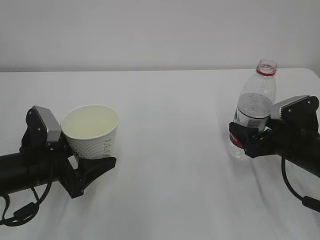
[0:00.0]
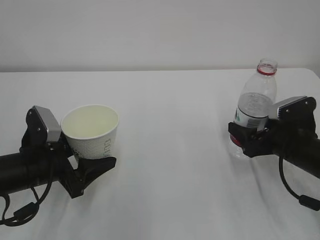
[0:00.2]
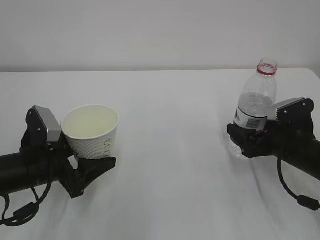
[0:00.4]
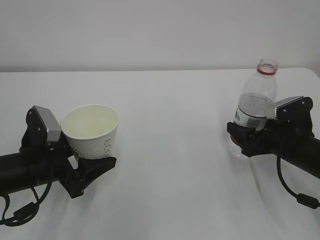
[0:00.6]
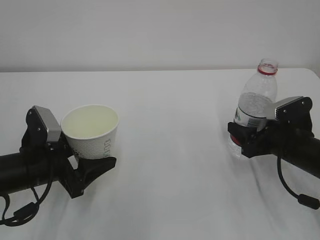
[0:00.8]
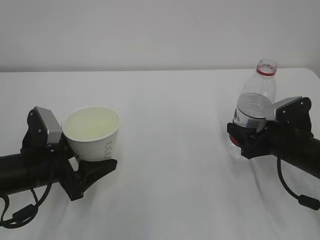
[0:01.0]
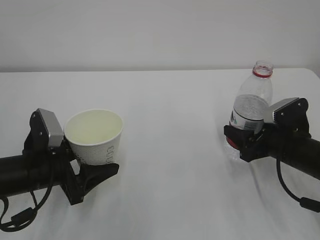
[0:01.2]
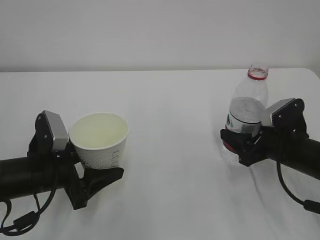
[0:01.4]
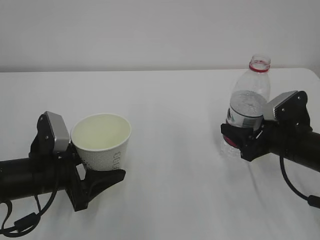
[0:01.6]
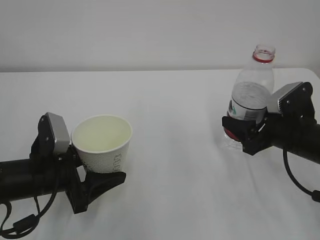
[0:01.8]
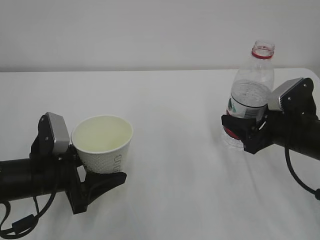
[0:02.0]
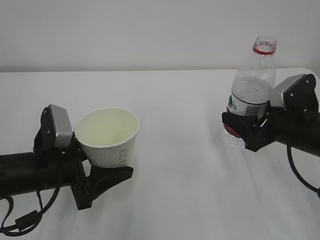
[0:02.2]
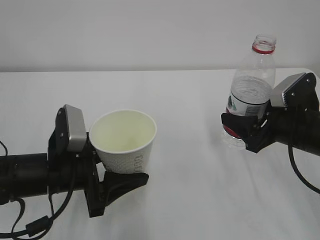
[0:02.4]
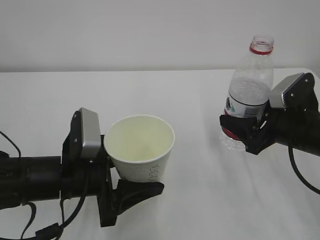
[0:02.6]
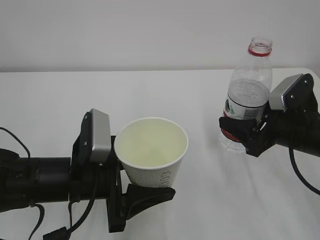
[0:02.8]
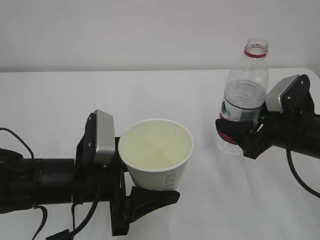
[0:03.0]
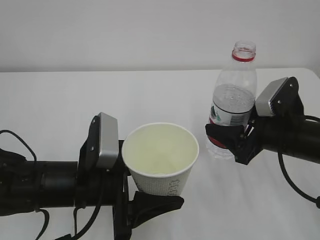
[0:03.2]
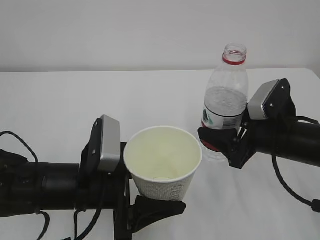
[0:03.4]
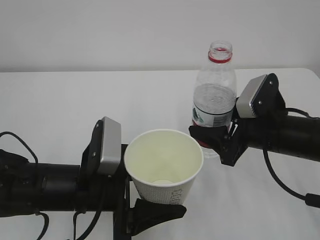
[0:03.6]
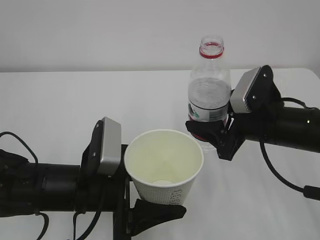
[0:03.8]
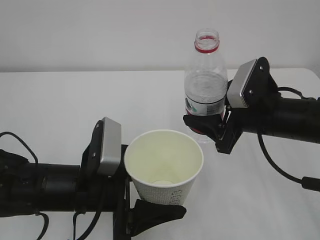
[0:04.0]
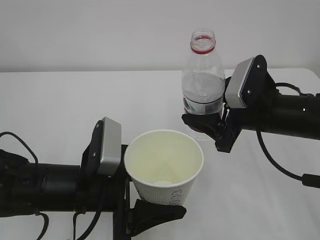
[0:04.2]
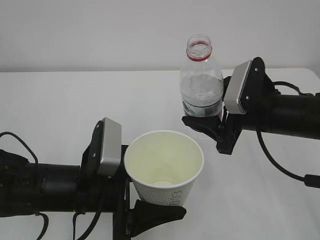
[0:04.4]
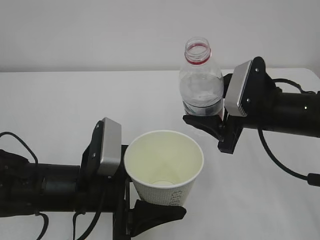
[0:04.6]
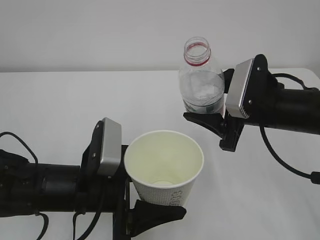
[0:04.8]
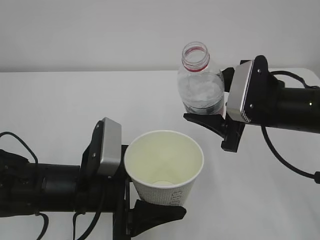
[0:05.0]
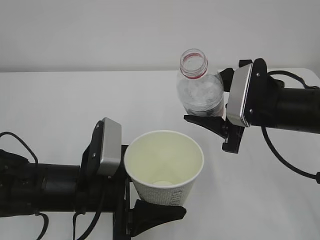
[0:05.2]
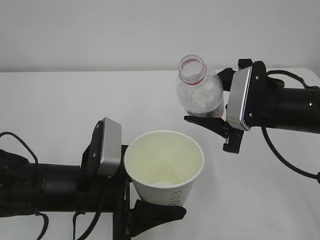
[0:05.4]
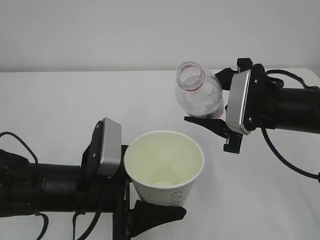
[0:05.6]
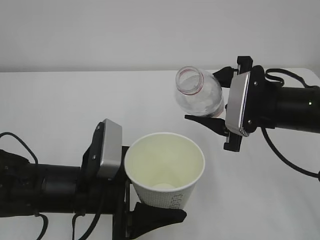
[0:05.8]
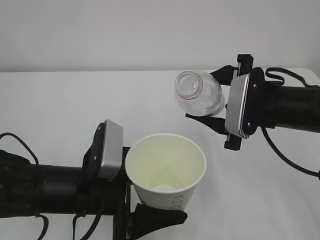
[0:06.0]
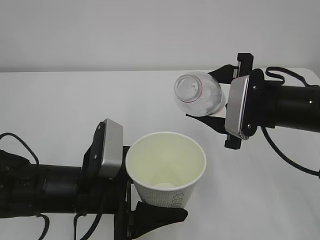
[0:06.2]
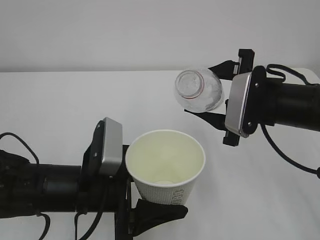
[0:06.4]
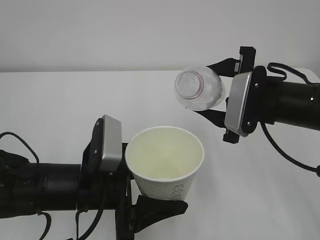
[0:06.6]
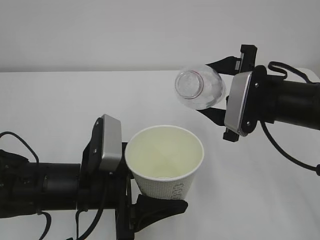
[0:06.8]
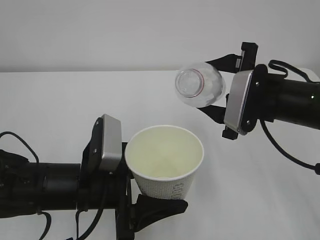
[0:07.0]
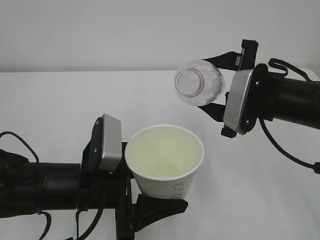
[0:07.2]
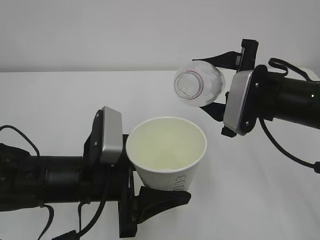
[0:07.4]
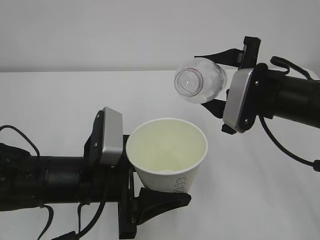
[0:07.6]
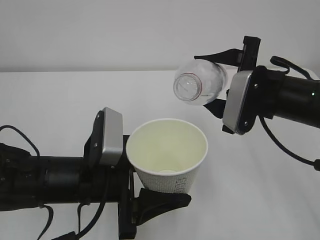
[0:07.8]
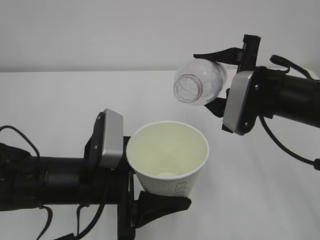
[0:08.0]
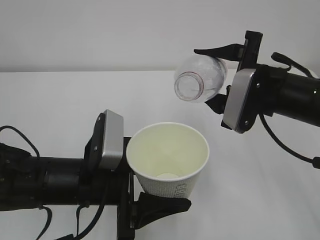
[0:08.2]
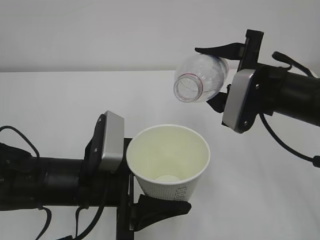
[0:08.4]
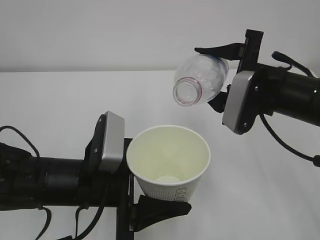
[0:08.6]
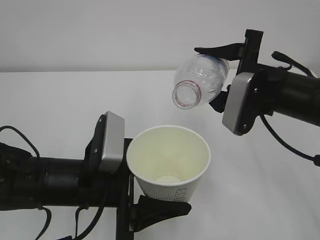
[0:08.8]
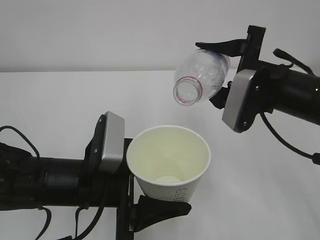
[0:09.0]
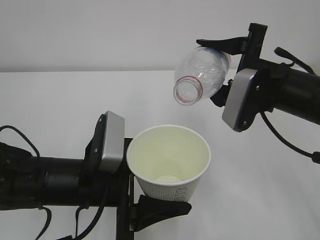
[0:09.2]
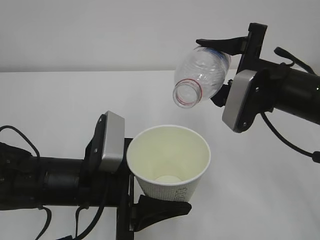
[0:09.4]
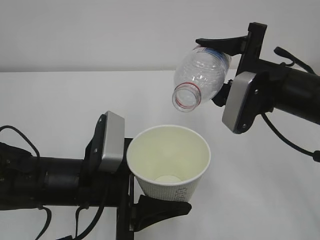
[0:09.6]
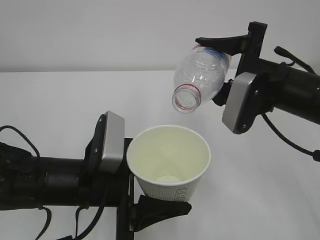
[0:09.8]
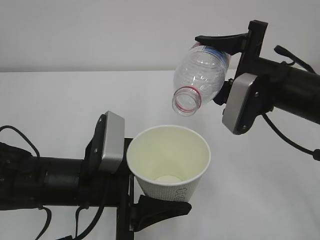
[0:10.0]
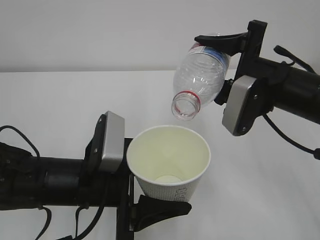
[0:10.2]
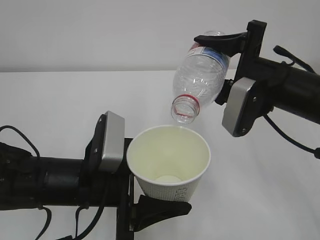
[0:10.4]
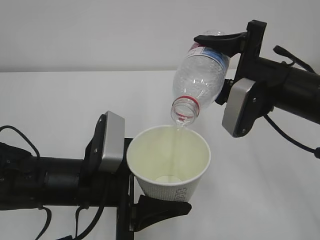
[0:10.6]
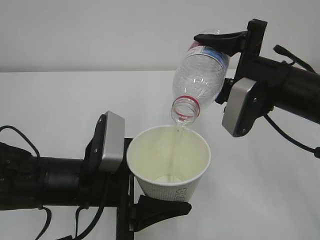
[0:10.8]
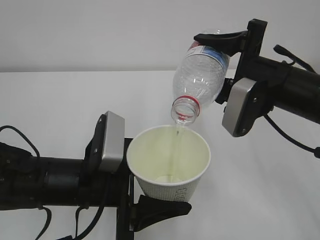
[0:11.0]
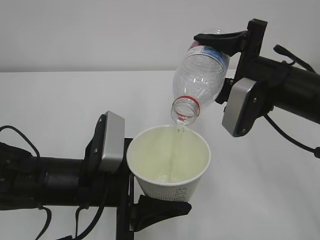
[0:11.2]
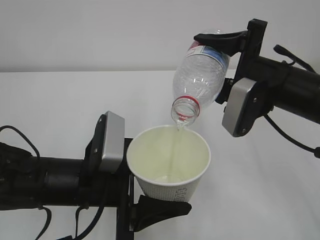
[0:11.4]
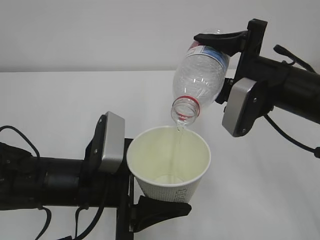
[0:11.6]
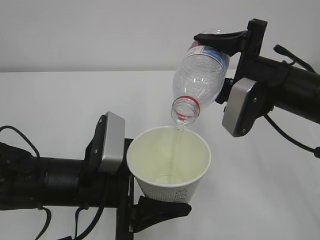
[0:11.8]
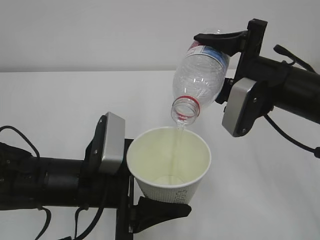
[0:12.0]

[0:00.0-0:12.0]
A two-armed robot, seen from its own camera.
0:00.0 to 0:01.6: The right gripper closes its fingers.
0:01.6 to 0:03.0: The left gripper goes about 10 cm to the right.
0:03.0 to 0:04.4: The right gripper moves to the left, some 5 cm.
0:06.0 to 0:07.6: The grippers stay close to where they were, moving slightly.
0:07.6 to 0:09.0: The grippers stay close to where they were, moving slightly.
0:09.0 to 0:10.4: The grippers move only a little.
0:10.4 to 0:12.0: Both grippers stay about where they are.

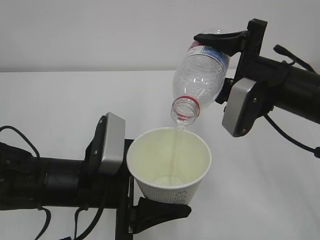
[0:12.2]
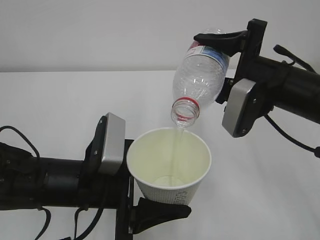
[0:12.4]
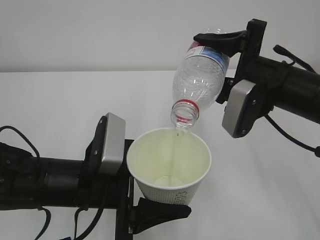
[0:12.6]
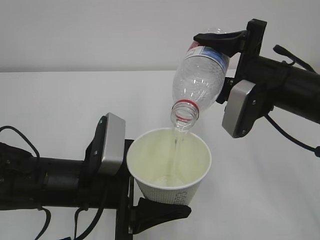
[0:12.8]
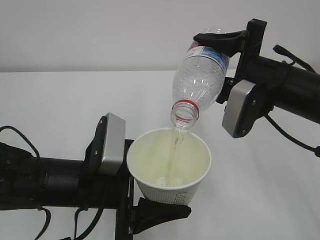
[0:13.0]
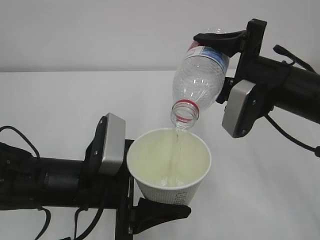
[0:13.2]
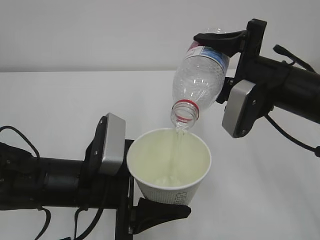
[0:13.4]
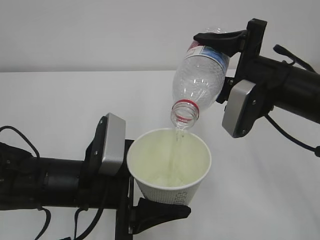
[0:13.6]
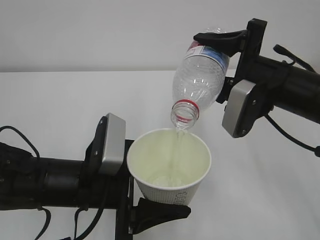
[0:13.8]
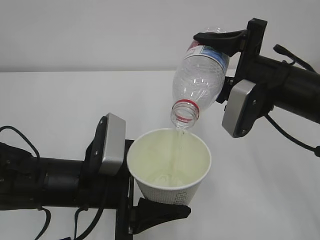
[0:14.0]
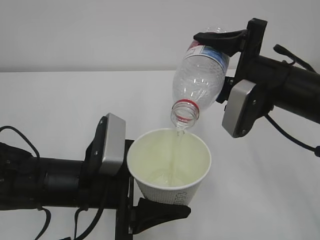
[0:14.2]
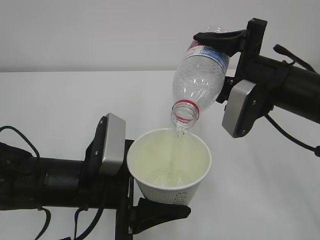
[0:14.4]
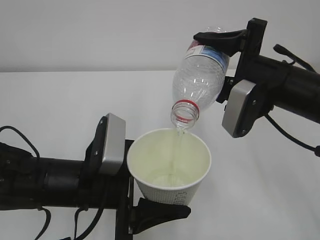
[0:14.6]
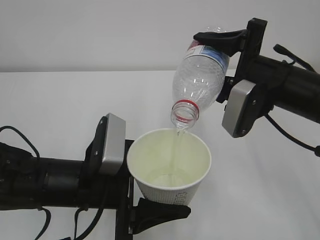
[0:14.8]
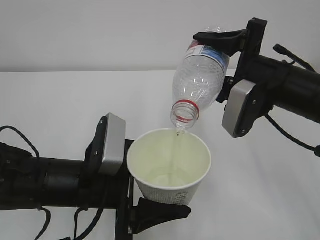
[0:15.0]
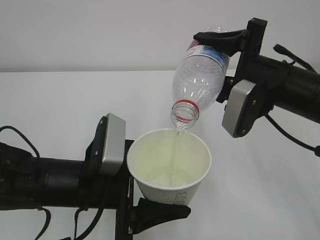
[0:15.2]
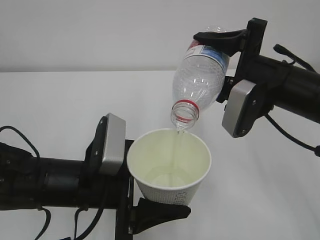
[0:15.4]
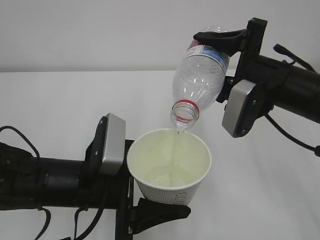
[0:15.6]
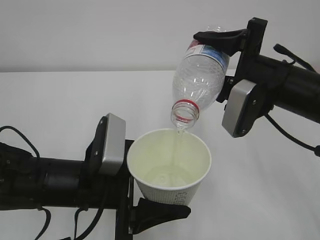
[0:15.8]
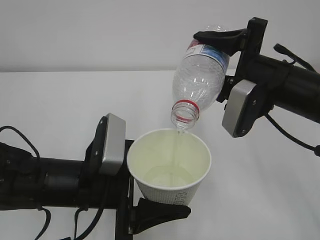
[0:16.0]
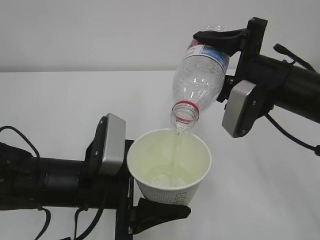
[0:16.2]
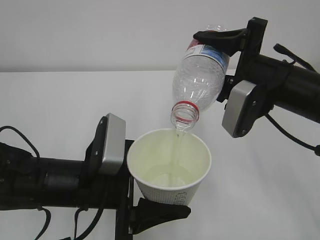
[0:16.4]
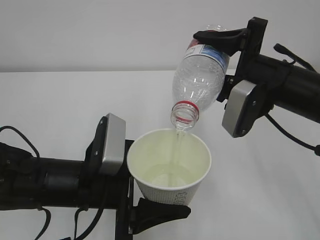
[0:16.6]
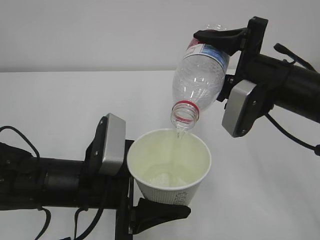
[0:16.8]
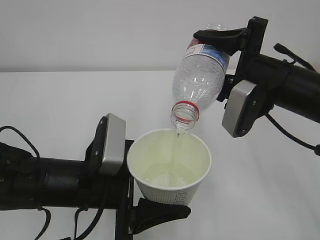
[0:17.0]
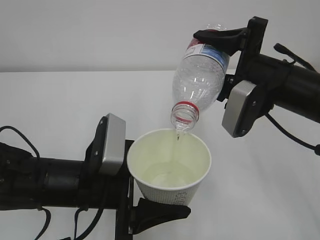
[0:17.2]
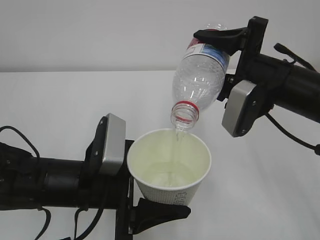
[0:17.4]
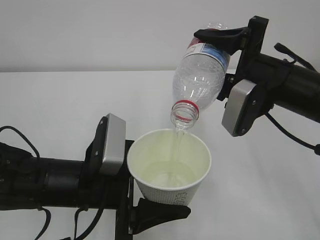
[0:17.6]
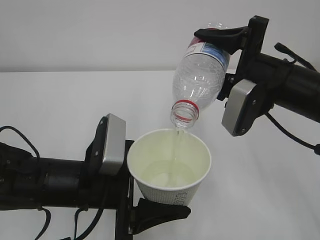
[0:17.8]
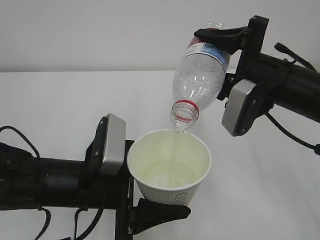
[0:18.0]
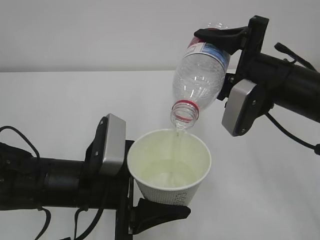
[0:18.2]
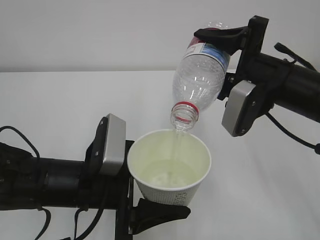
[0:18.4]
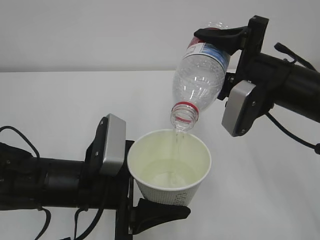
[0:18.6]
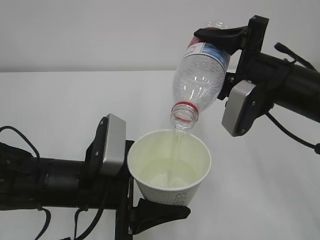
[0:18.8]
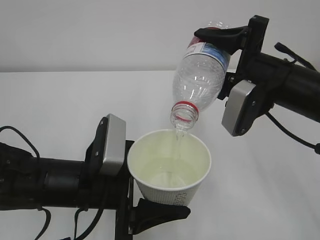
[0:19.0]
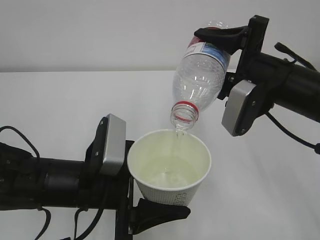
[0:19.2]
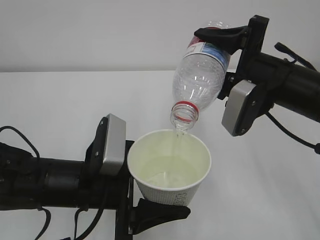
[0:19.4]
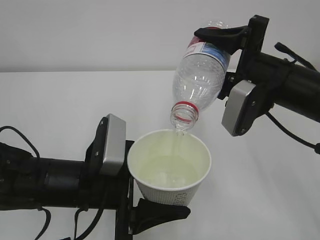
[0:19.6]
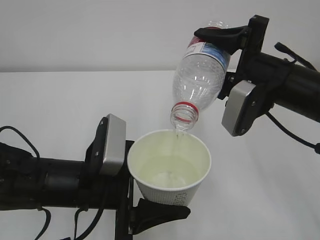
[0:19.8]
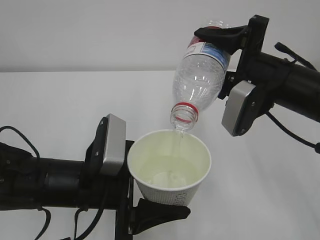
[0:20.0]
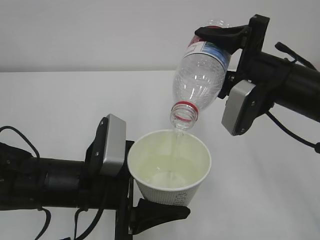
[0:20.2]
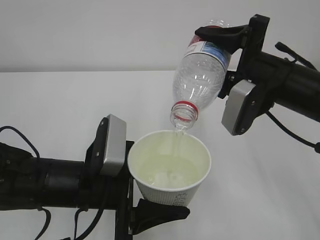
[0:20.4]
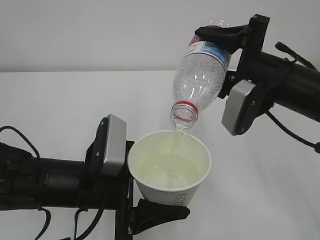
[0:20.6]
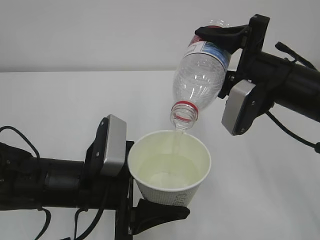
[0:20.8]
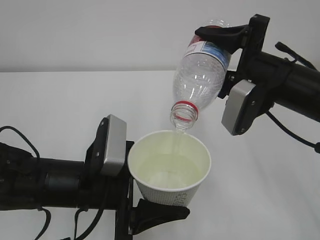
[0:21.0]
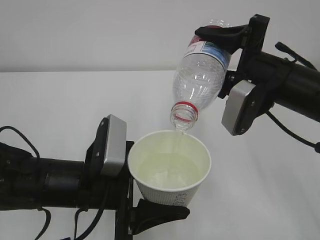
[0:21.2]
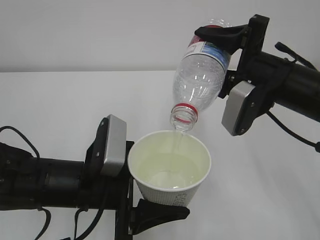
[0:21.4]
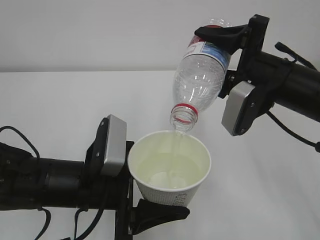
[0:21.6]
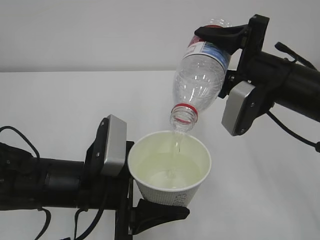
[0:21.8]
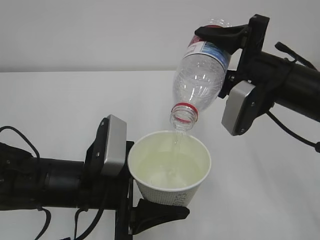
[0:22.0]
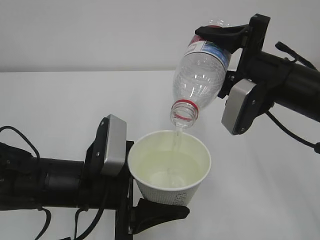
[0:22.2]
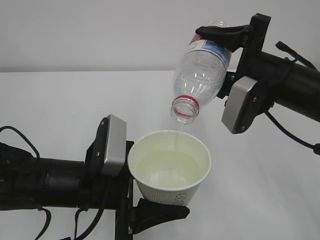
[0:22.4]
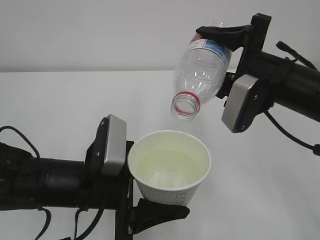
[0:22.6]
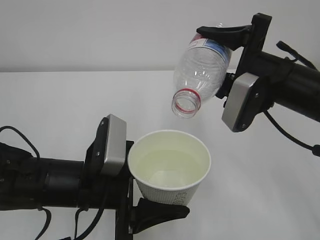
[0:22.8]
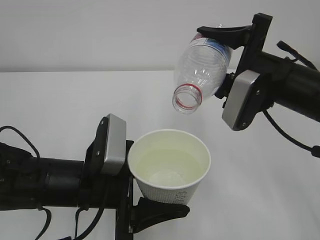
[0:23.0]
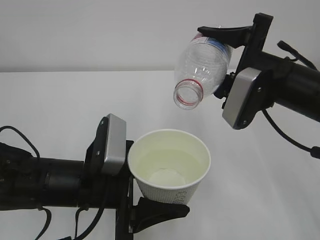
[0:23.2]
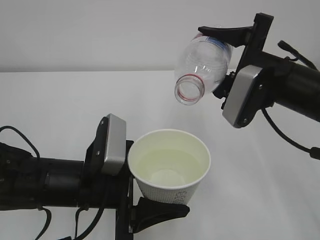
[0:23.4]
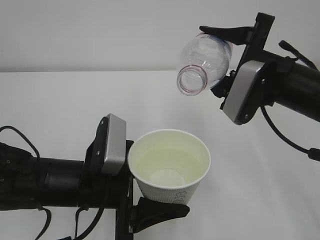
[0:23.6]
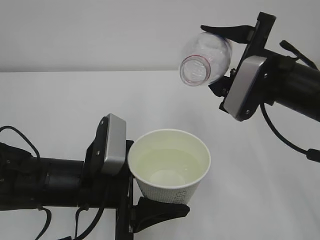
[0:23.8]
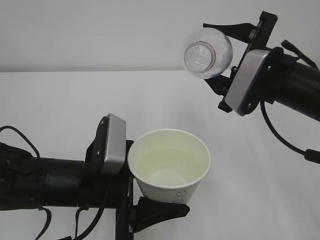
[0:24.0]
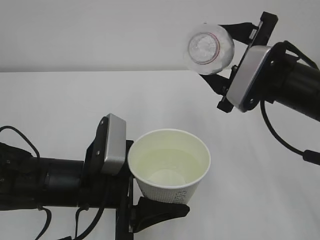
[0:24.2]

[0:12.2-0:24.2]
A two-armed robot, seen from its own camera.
0:12.2 to 0:18.2: The two grippers keep their place.
0:18.2 to 0:21.2: Neither gripper changes place.
0:21.2 to 0:22.6: There are only small adjustments of the grippers.
